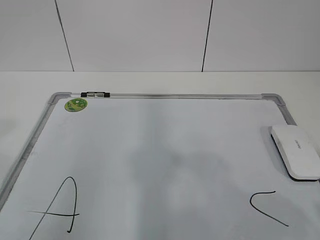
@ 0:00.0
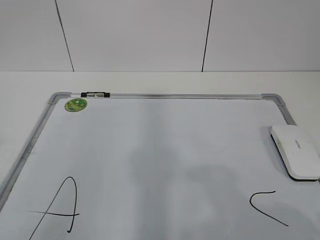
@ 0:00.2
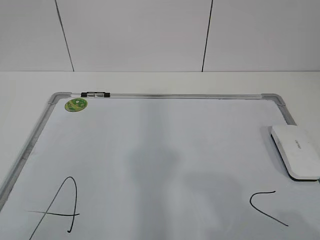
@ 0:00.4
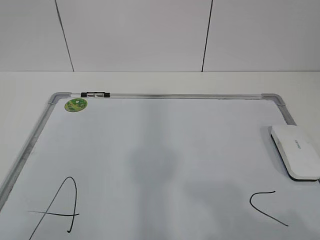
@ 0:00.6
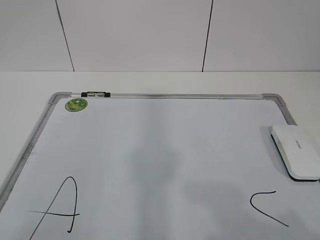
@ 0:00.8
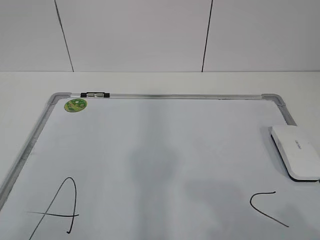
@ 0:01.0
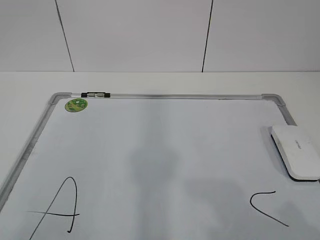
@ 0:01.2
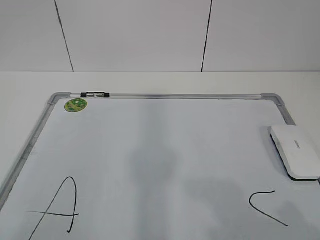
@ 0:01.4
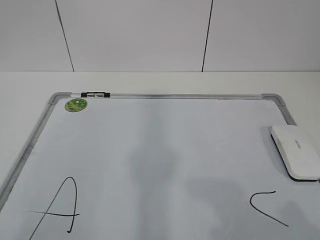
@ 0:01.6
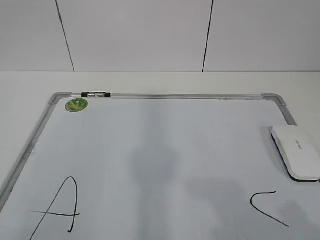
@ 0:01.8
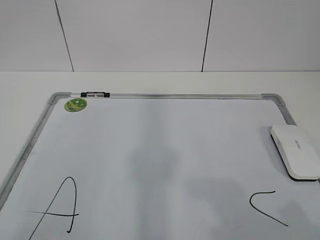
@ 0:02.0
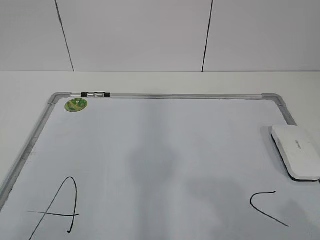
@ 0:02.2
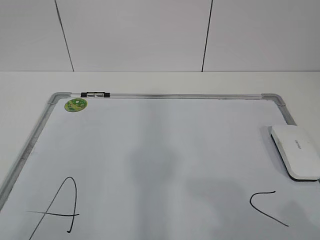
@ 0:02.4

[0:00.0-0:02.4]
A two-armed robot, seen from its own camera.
Task of the whole recording: pick up the eraser on the blackboard and erase the letter "B".
0:01.2 to 0:02.4: The two grippers keep their place.
